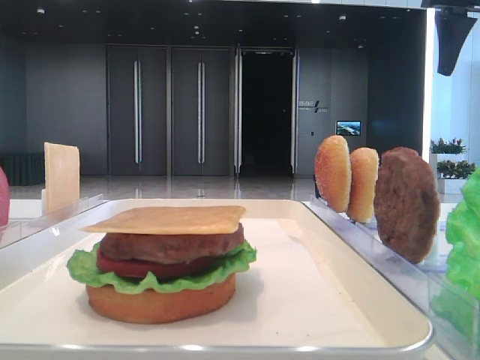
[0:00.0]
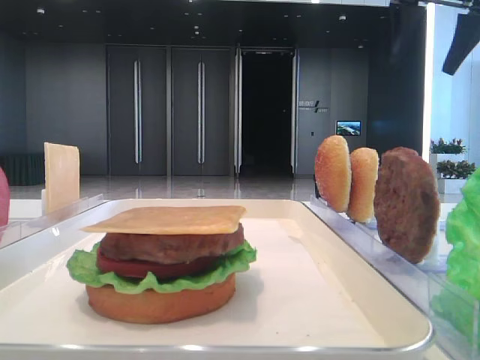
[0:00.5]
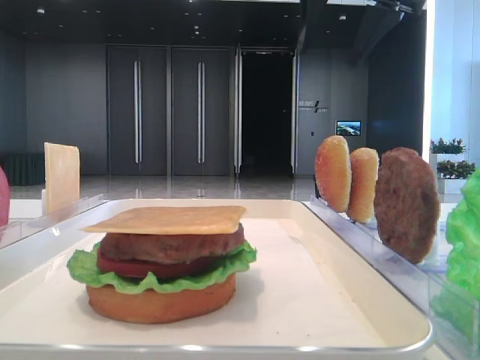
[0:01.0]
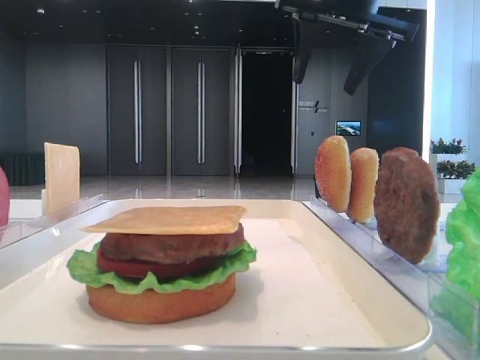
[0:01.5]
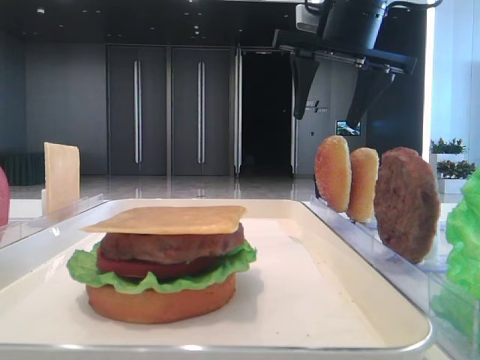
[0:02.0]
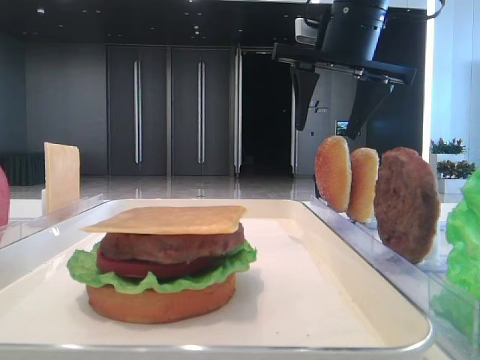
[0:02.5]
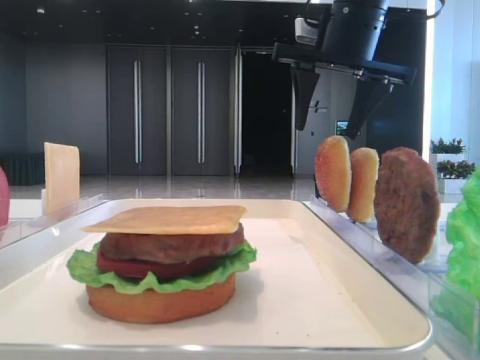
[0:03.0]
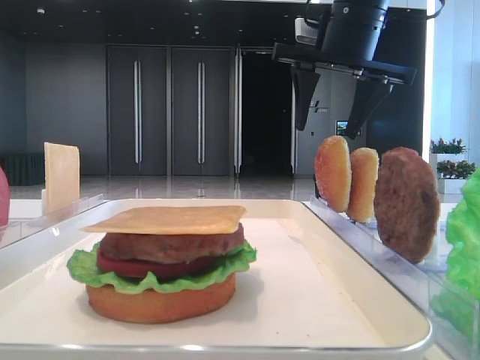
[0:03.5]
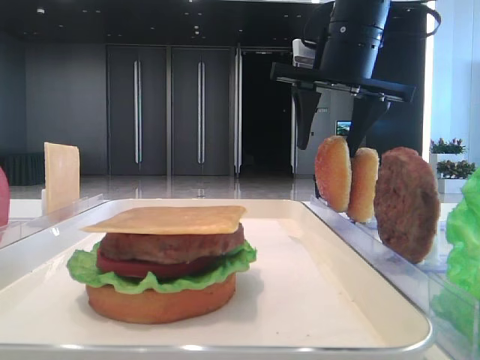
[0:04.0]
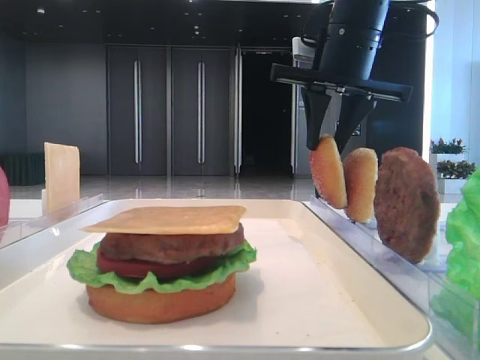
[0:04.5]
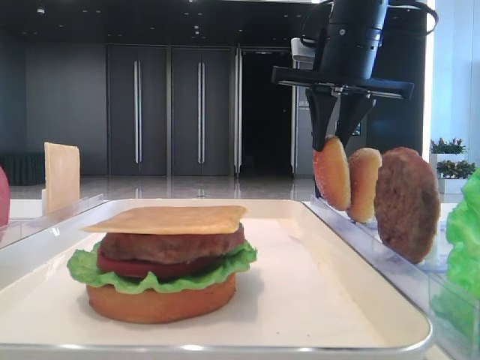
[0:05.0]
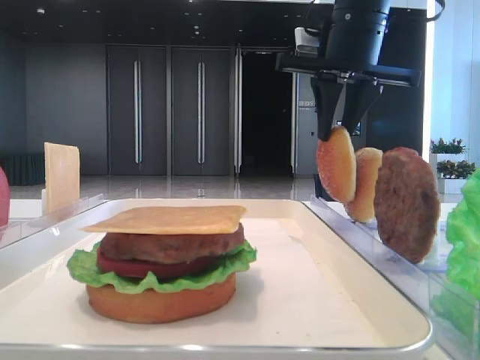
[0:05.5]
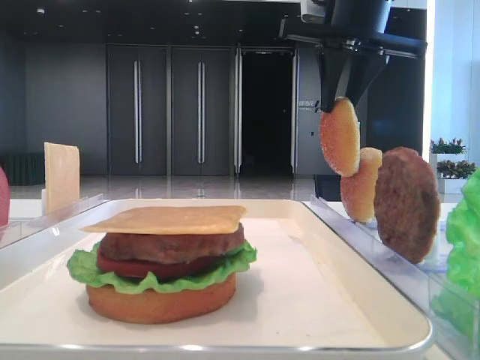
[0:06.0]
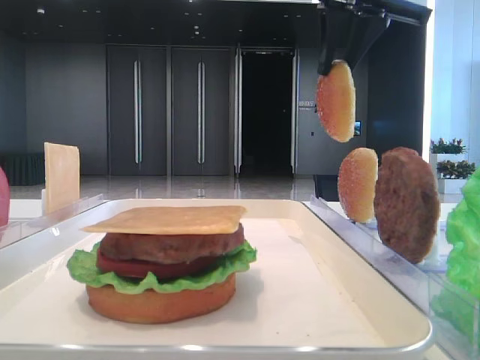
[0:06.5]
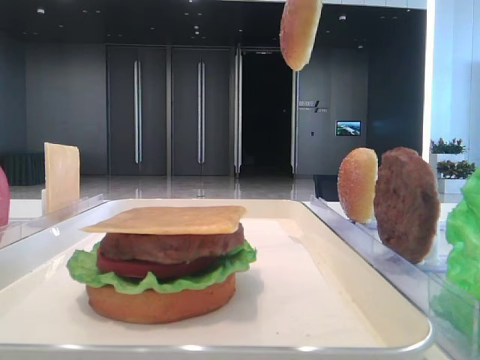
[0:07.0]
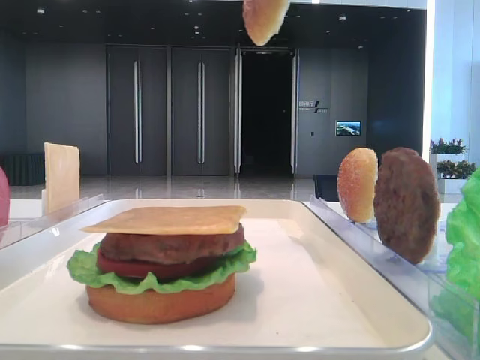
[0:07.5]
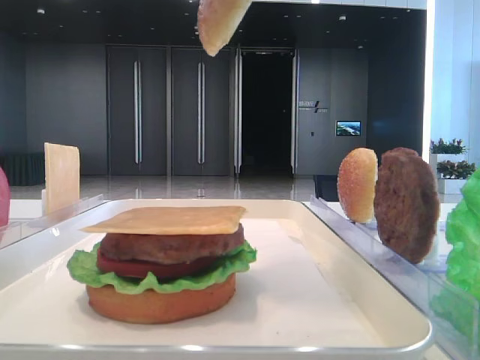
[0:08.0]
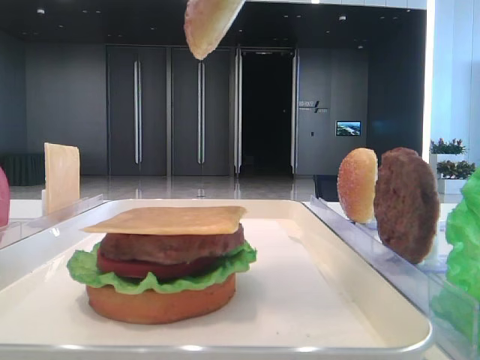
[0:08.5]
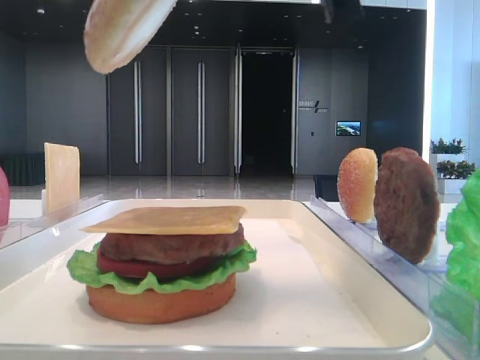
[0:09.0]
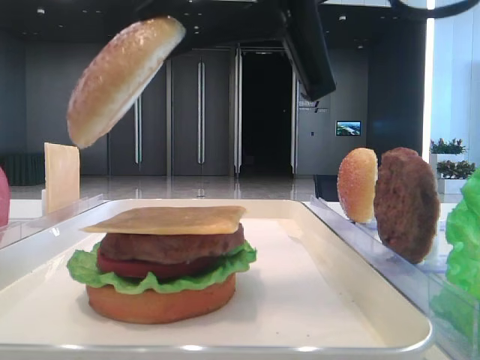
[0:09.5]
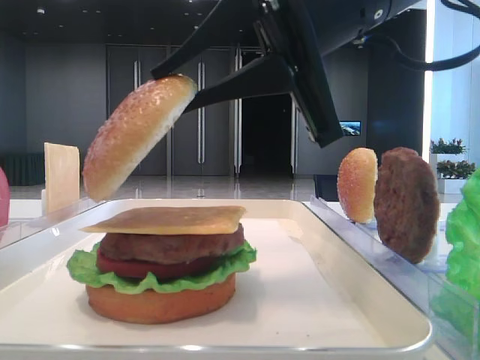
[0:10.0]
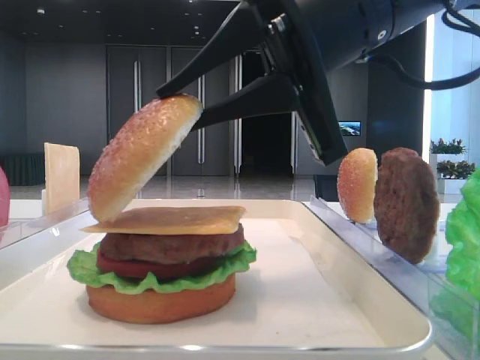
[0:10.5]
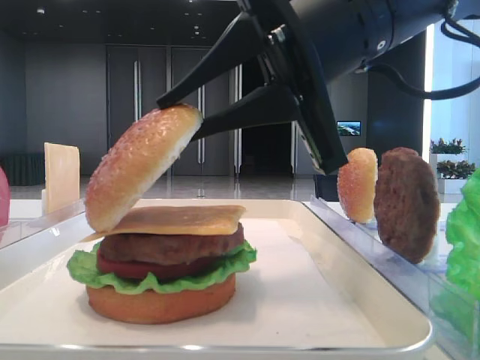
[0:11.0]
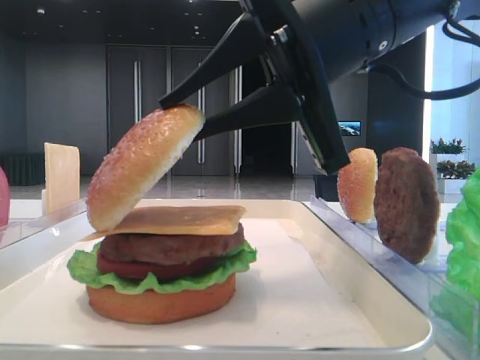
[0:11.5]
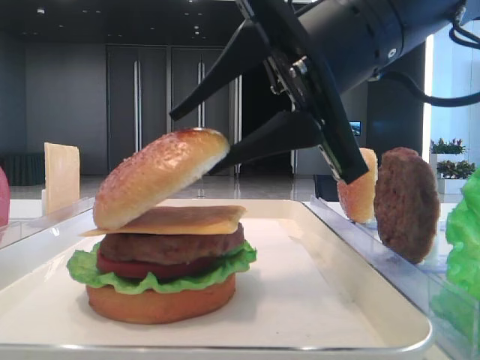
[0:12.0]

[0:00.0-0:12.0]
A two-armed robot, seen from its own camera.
Step, 0:00.0 to 0:05.0: Pick up the top bread slice with the right hand.
0:00.0 to 0:02.0: The left gripper closes, while the right gripper moves to the left, roughly 15 cm.
0:02.0 to 0:04.0: The grippers stay close to where they were, moving slightly.
0:04.0 to 0:06.0: The right gripper closes.
0:06.0 to 0:08.0: The right gripper heads backward, covering approximately 20 cm.
0:08.0 to 0:10.0: The right gripper heads downward and to the left, covering roughly 10 cm.
0:10.0 to 0:12.0: The right gripper opens up.

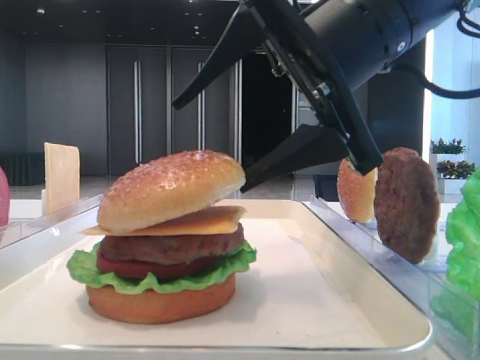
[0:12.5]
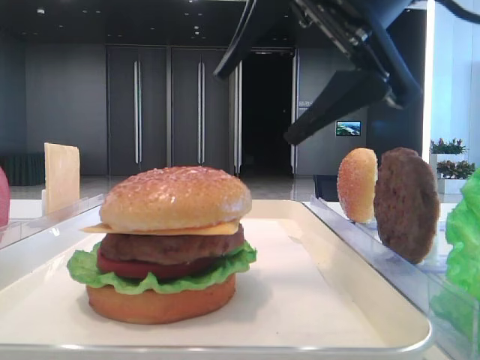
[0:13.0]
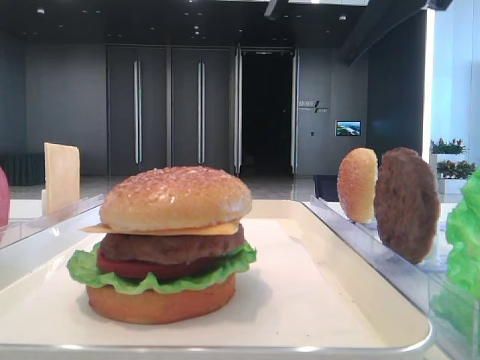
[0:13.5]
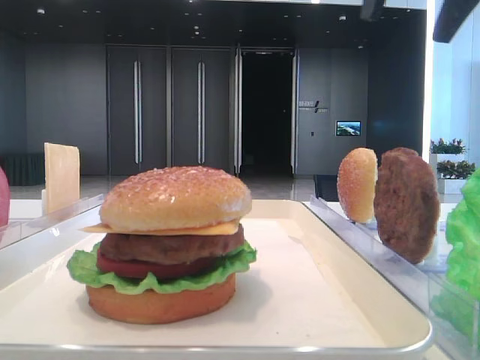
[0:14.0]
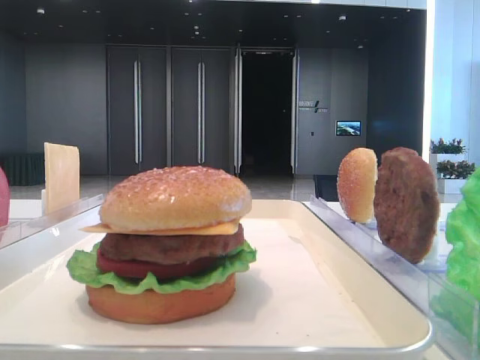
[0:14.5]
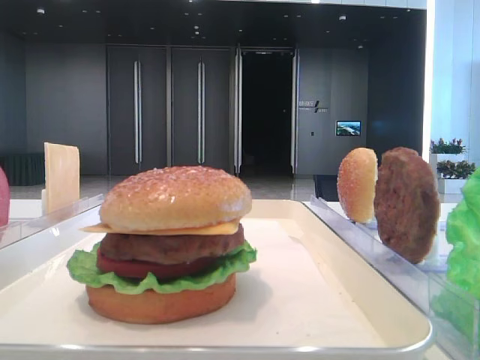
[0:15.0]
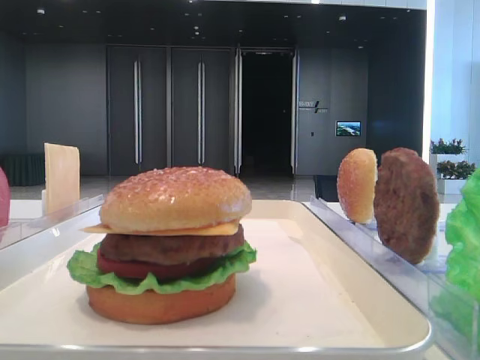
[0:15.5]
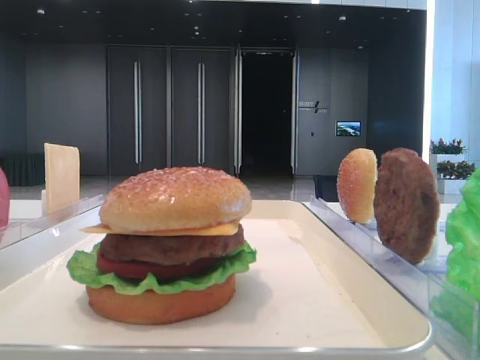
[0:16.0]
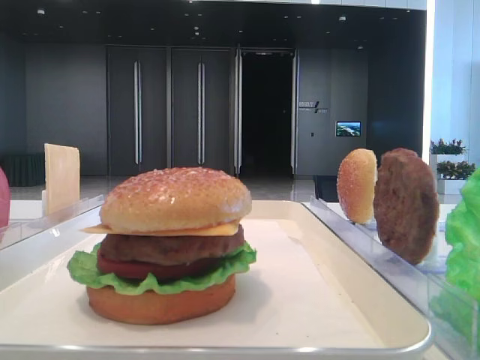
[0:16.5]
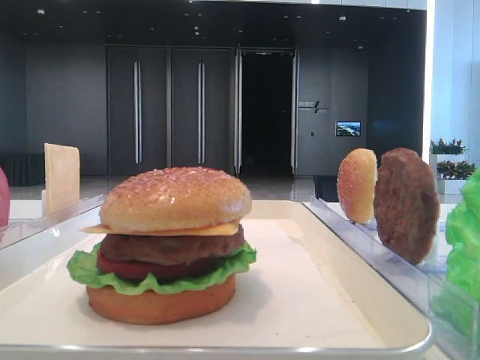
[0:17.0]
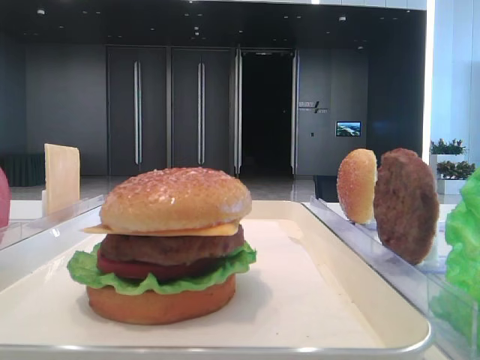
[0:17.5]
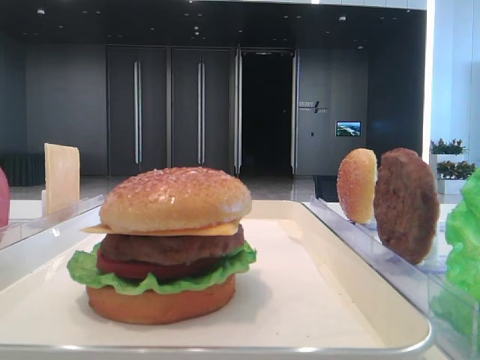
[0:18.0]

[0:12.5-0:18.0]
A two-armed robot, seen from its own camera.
0:12.5 to 0:14.5: The right gripper travels to the right and upward by about 25 cm.

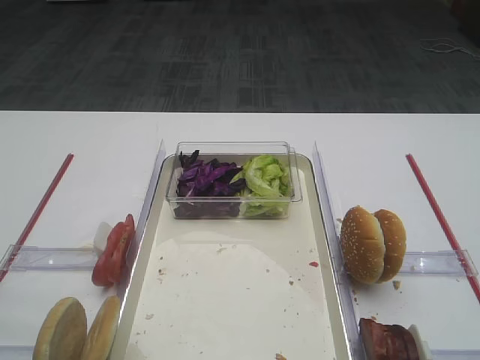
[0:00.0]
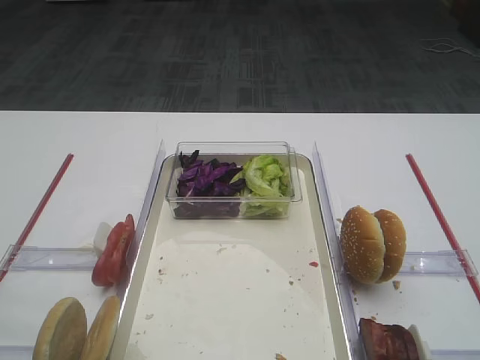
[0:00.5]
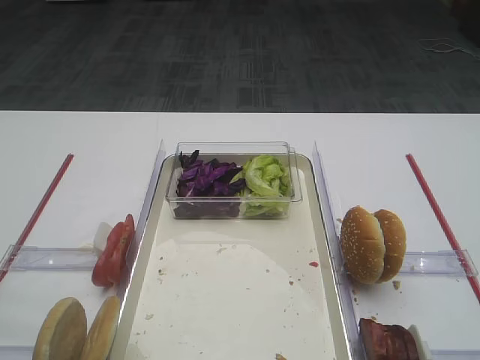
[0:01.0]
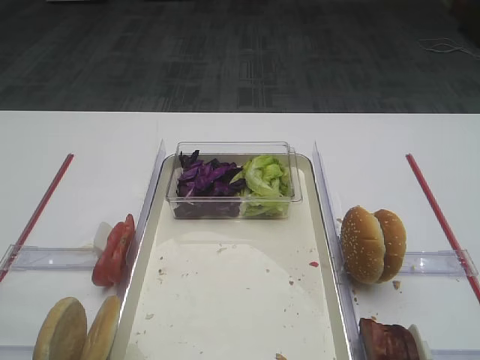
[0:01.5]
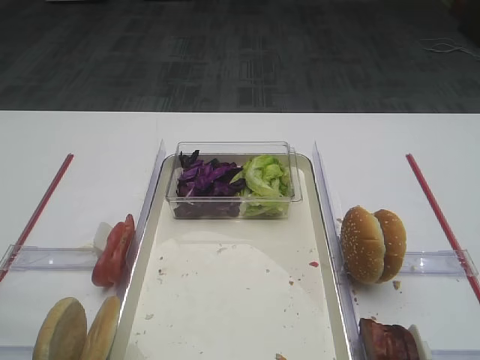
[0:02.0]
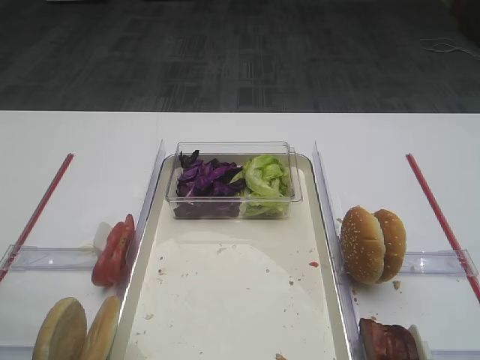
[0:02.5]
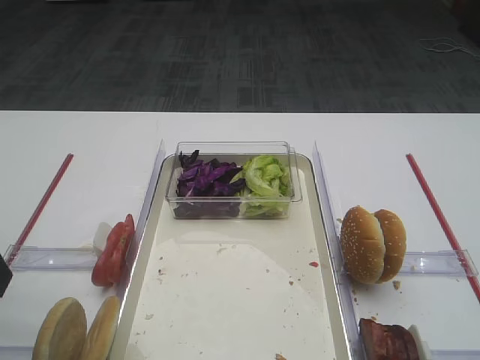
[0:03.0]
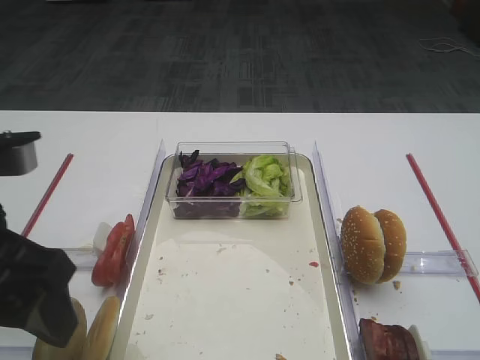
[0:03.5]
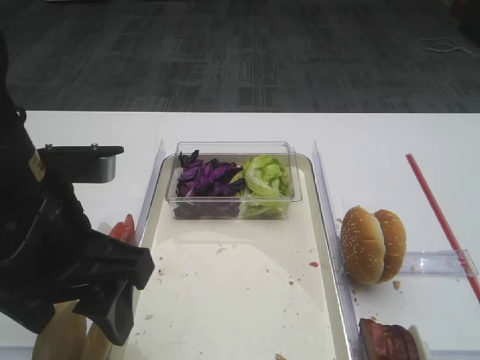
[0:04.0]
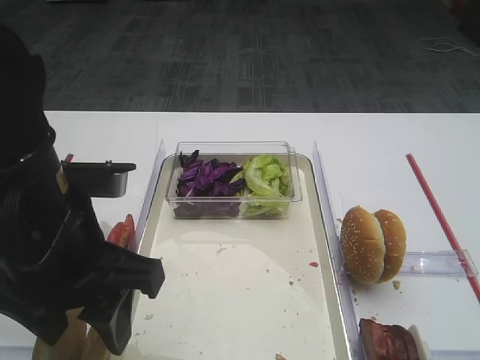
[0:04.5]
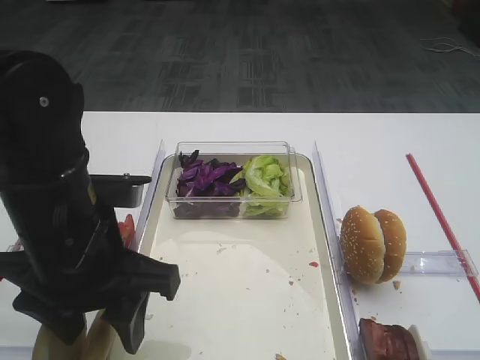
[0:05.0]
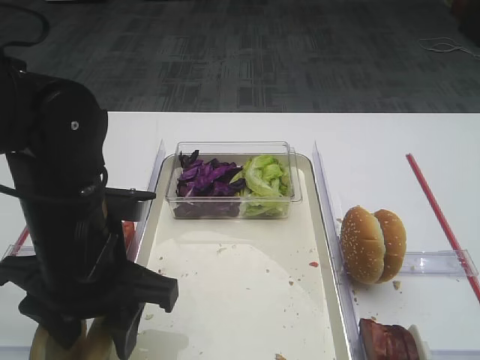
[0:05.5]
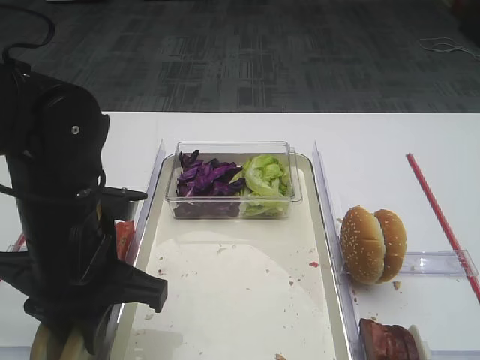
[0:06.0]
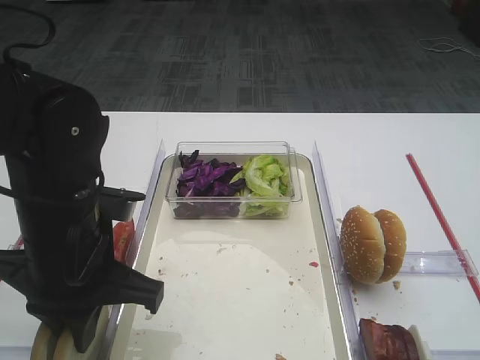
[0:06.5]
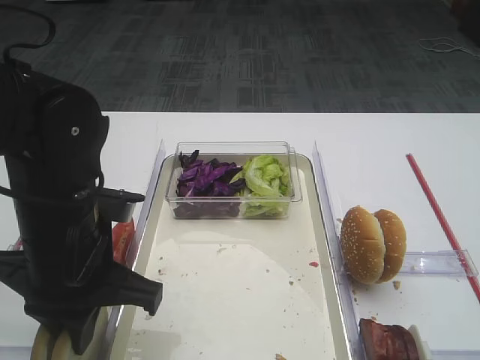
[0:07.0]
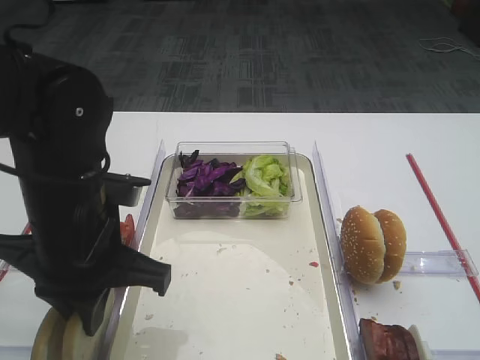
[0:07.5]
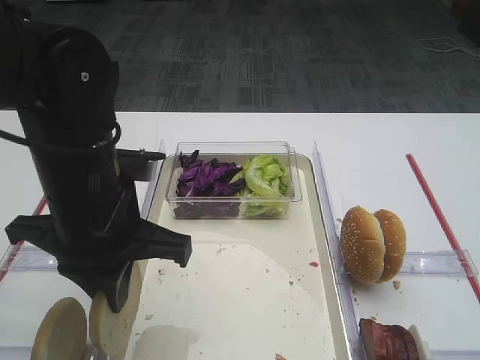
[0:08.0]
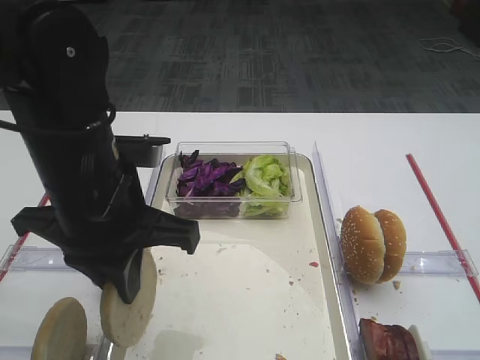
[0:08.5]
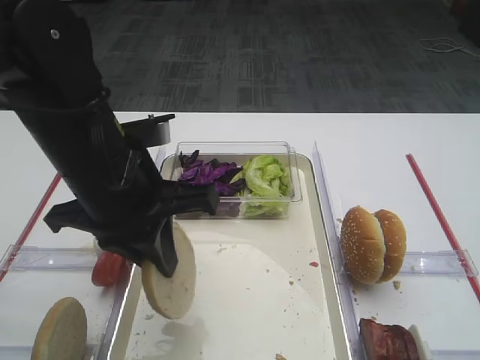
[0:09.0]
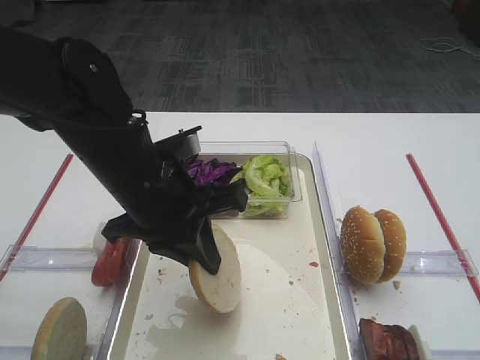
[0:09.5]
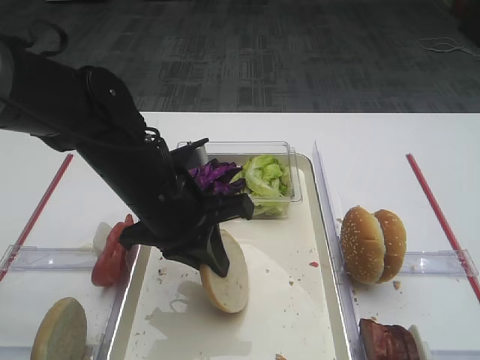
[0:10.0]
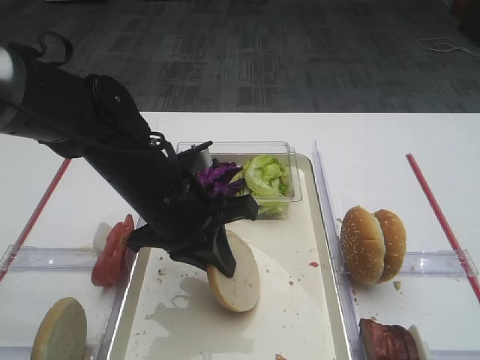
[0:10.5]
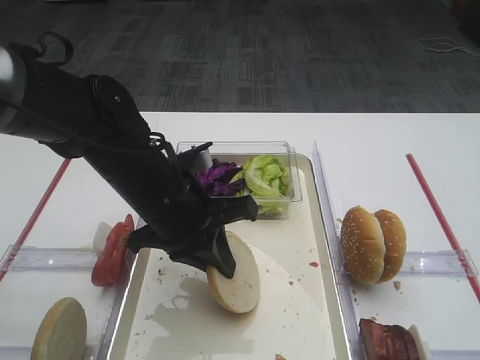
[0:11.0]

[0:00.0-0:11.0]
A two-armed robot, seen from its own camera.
Step, 0:00.0 to 0:08.0: Pick up the bread slice with the left gripper.
0:02.0 to 0:03.5: The left gripper is displaced to the right and forward by some 10 cm.
0:03.5 to 0:05.5: The left gripper travels downward, to the right and forward by approximately 10 cm.
0:05.5 to 0:07.5: The left gripper closes up.
0:09.0 to 0:11.0: The left gripper moves downward, about 5 cm.
